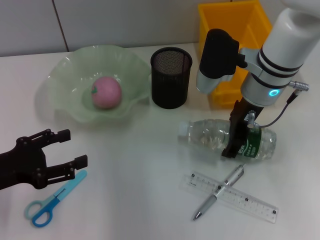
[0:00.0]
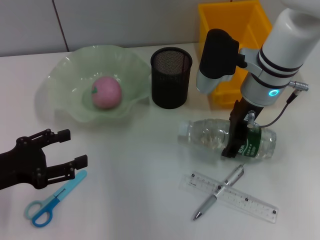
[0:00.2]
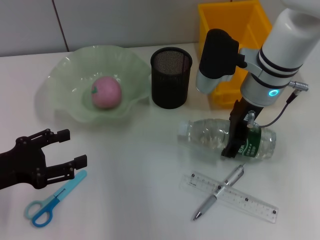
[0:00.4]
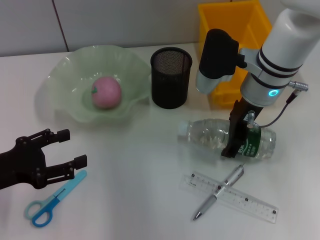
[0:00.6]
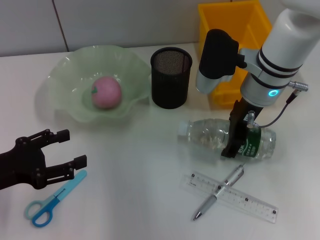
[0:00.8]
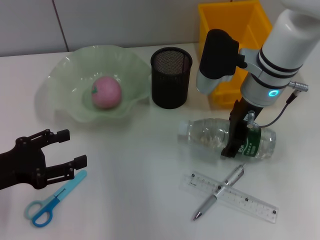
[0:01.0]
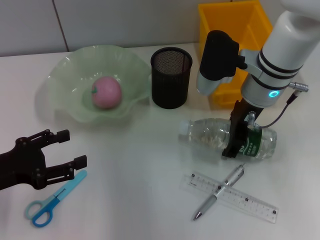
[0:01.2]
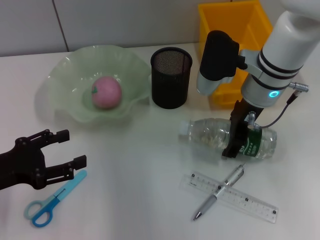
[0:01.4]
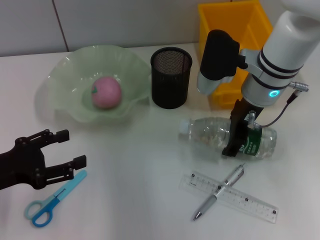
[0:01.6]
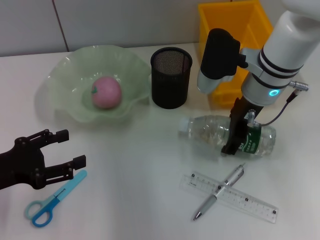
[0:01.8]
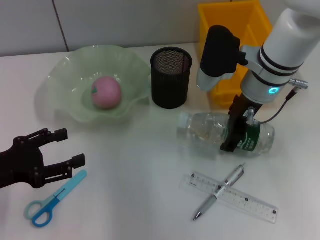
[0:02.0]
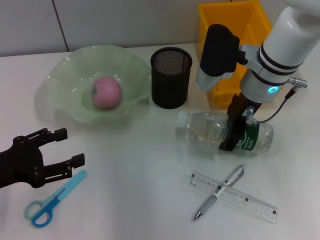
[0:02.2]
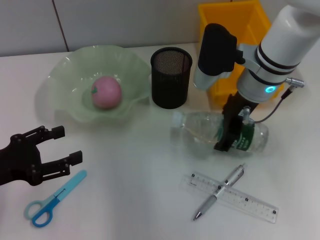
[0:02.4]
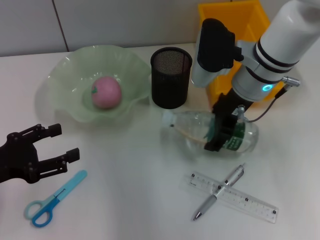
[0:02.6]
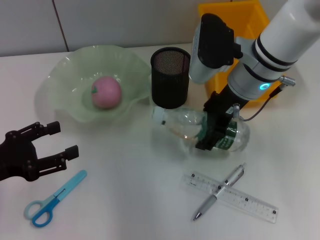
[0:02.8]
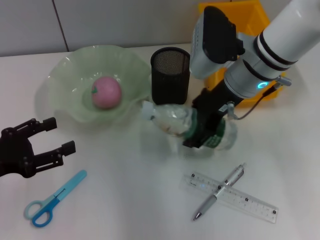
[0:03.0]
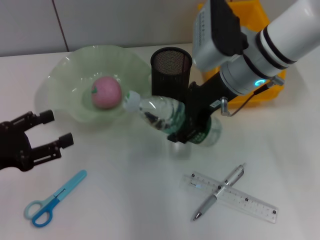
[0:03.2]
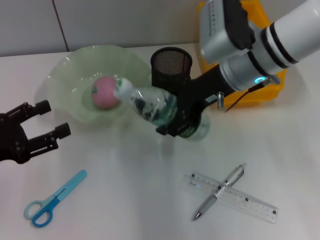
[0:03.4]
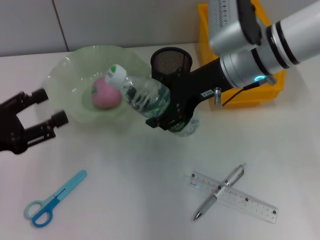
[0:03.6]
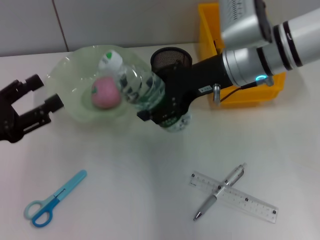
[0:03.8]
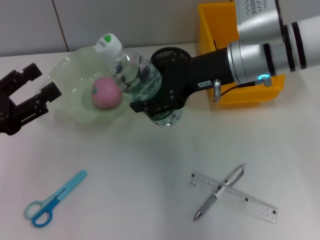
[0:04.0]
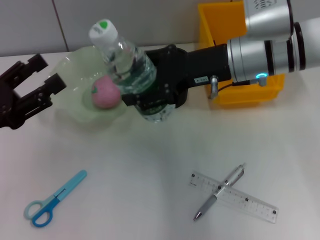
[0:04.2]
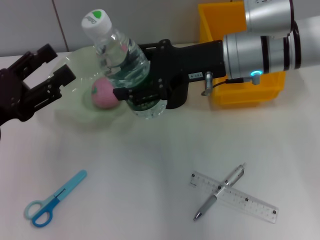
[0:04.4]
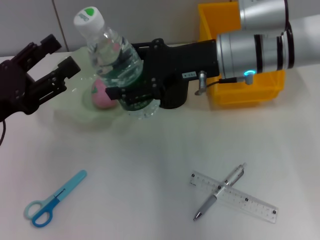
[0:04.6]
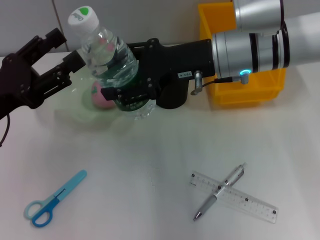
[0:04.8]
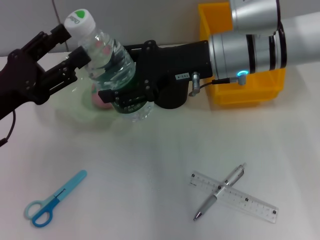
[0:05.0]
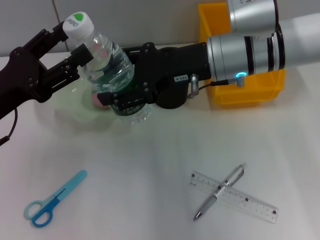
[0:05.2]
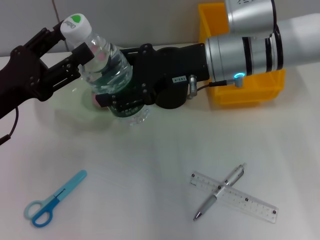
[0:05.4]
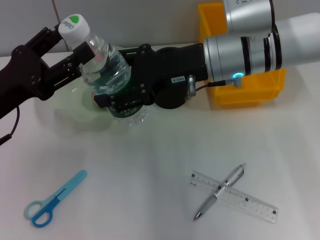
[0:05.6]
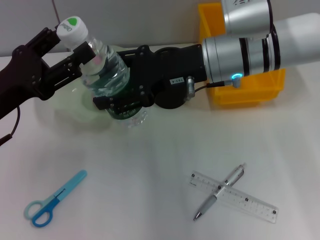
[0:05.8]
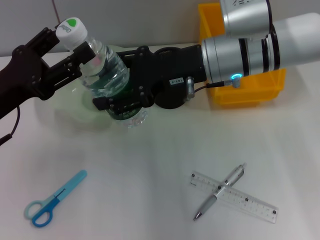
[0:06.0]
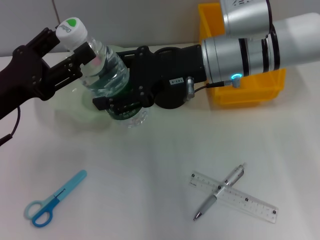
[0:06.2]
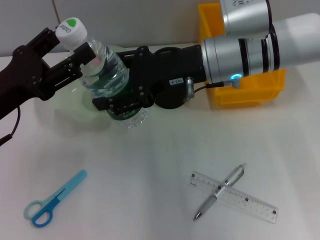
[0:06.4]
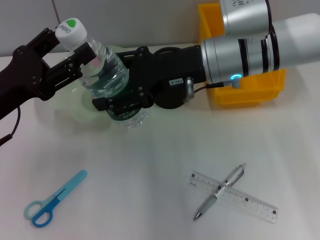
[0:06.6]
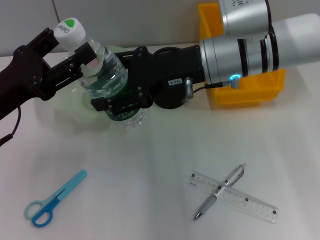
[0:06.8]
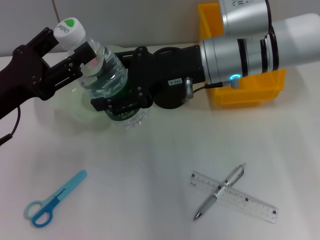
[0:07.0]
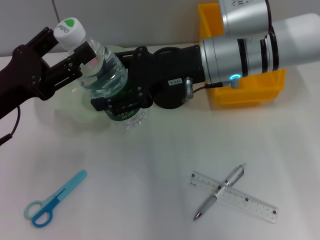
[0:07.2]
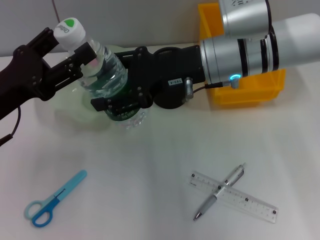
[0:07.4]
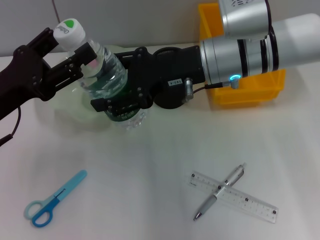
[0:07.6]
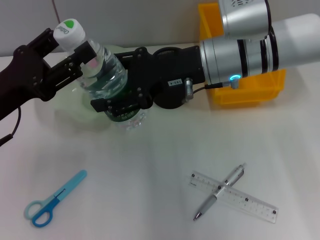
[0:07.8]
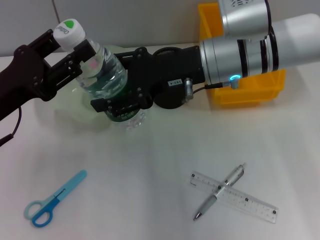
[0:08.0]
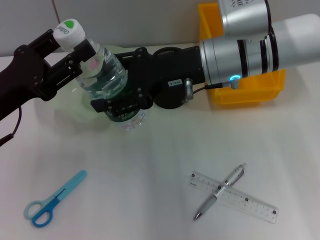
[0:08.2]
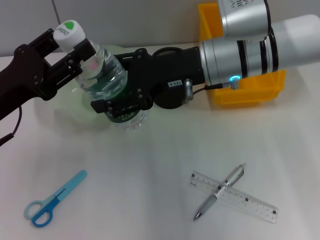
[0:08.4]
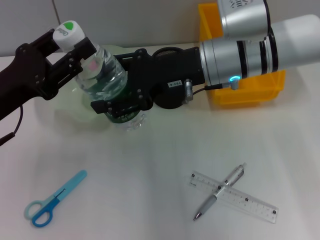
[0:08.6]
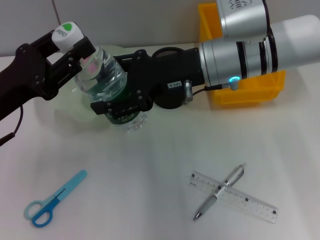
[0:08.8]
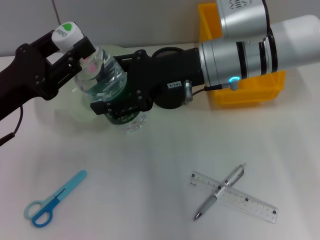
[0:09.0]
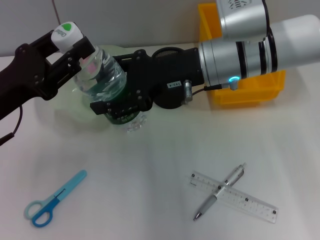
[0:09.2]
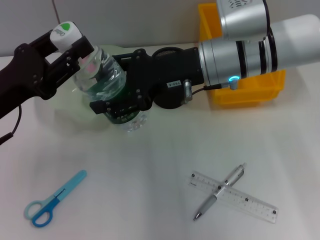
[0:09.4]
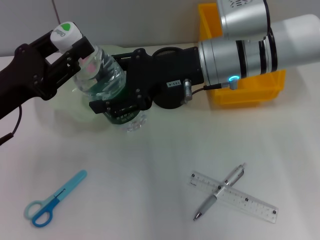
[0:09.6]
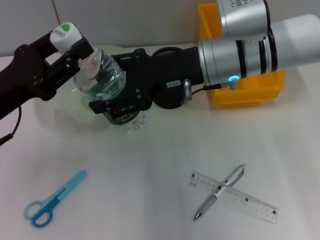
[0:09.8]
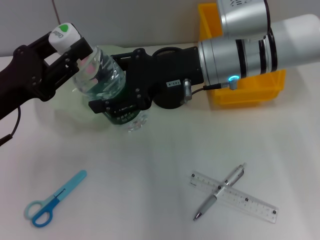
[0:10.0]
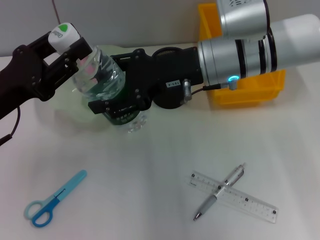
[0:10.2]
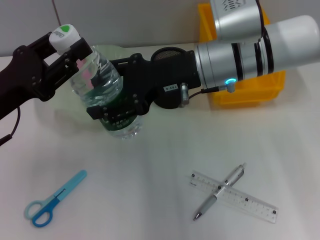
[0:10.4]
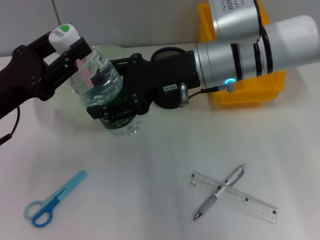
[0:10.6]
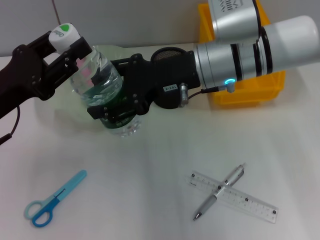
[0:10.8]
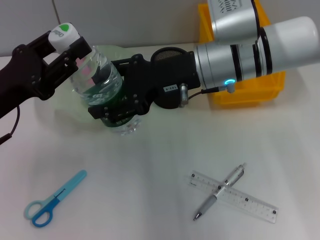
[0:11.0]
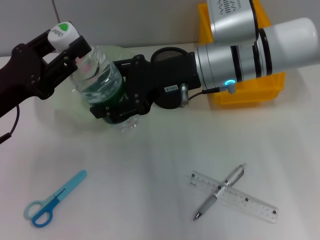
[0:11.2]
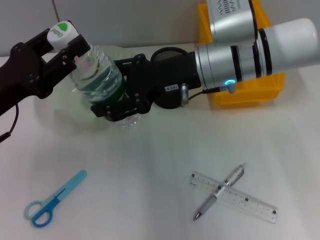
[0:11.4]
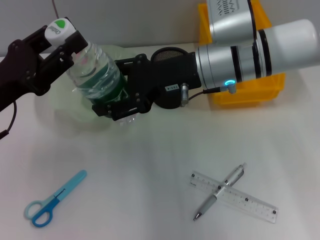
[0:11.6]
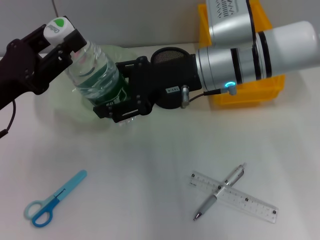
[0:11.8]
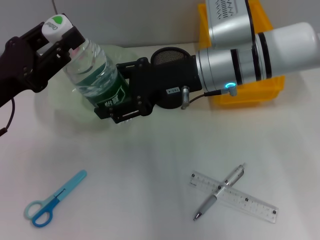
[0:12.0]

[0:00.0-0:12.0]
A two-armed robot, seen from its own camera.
0:00.0 to 0:01.6: Both grippers stay put.
0:04.4 to 0:06.0: There are only small adjustments of the grippers.
0:06.0 to 0:07.6: Both grippers stay put.
0:07.6 to 0:09.0: The left gripper closes.
0:09.0 to 0:12.0: Both grippers stay put.

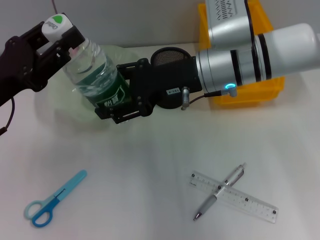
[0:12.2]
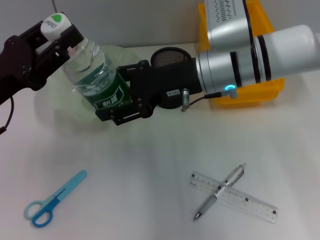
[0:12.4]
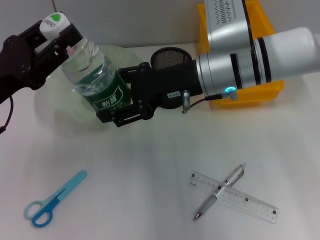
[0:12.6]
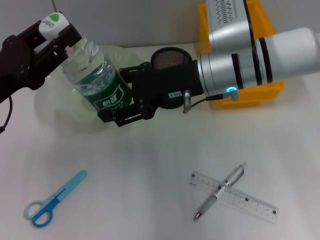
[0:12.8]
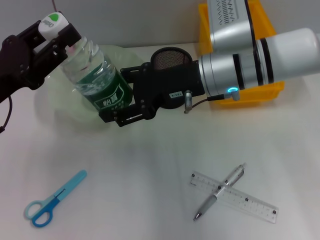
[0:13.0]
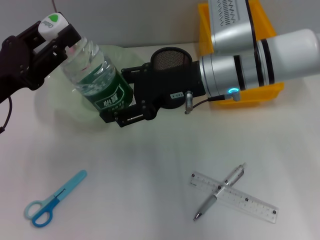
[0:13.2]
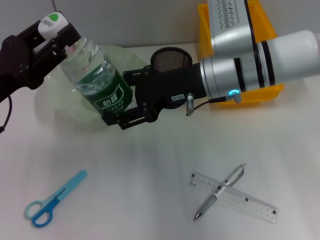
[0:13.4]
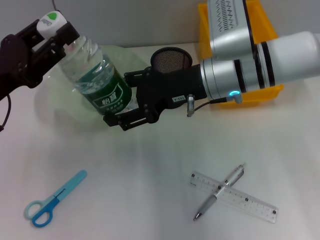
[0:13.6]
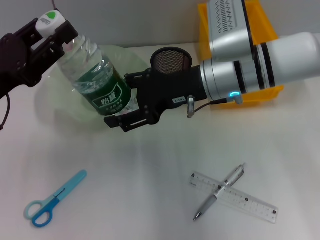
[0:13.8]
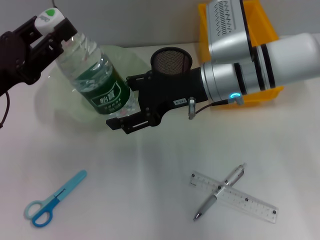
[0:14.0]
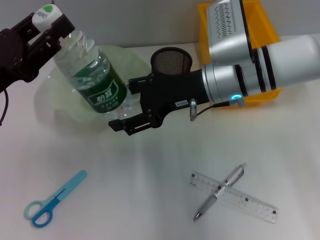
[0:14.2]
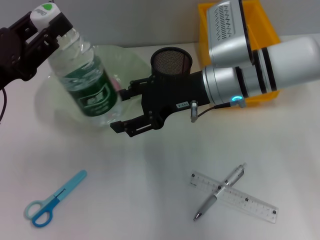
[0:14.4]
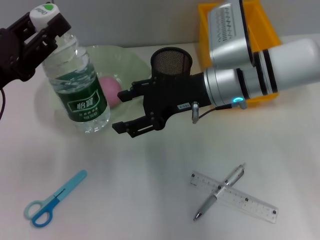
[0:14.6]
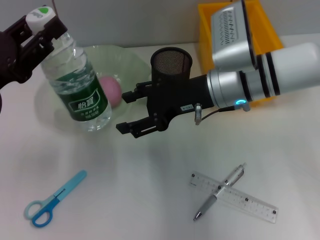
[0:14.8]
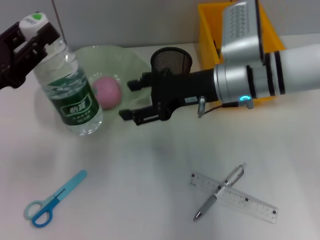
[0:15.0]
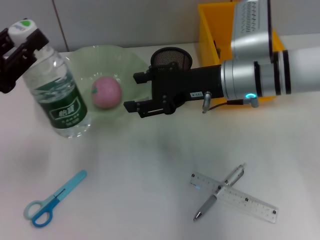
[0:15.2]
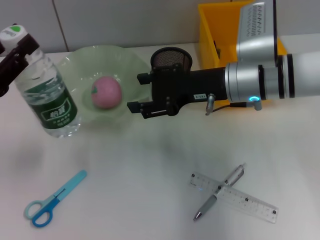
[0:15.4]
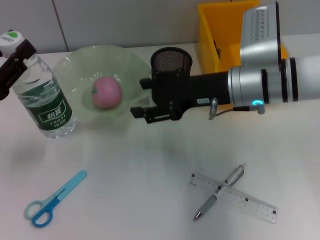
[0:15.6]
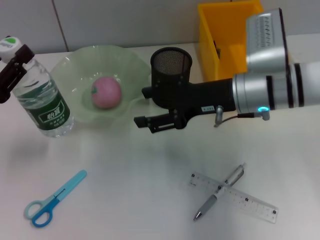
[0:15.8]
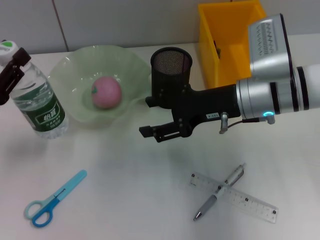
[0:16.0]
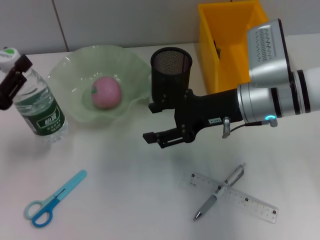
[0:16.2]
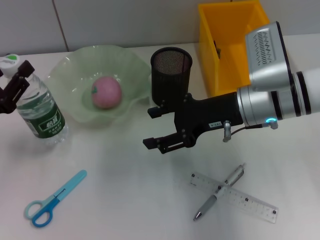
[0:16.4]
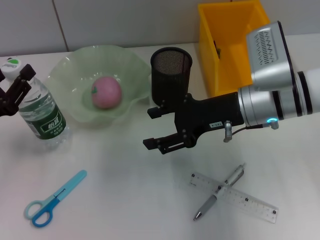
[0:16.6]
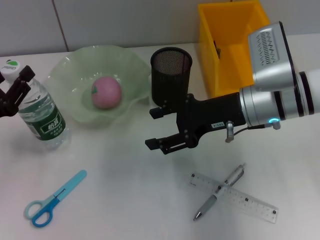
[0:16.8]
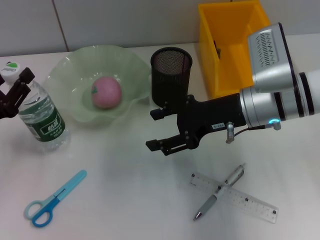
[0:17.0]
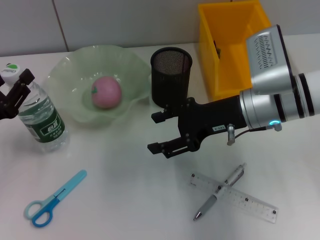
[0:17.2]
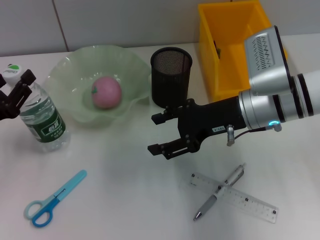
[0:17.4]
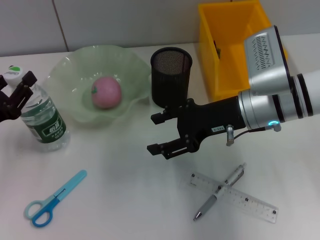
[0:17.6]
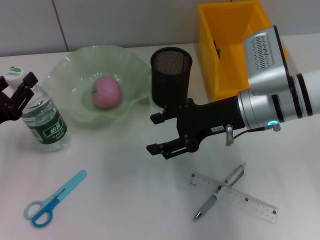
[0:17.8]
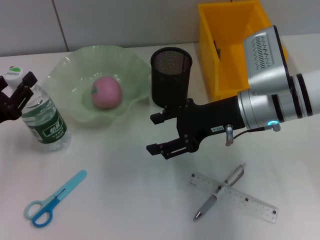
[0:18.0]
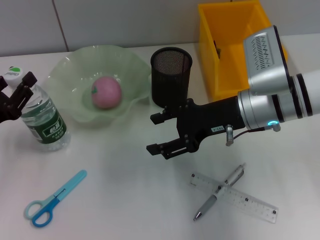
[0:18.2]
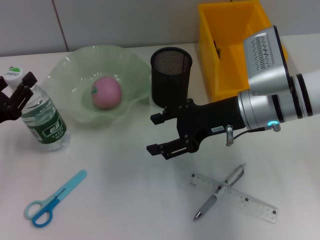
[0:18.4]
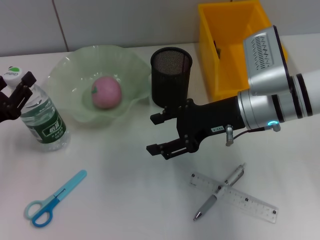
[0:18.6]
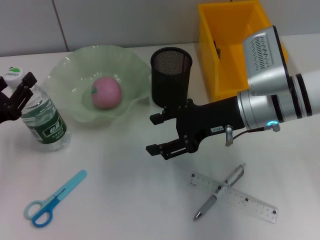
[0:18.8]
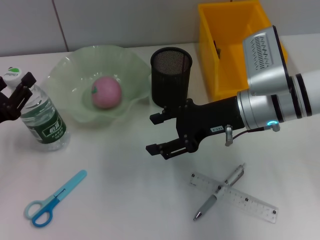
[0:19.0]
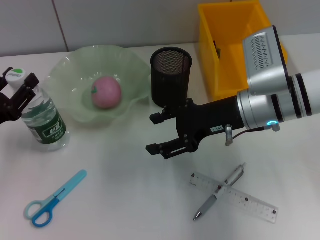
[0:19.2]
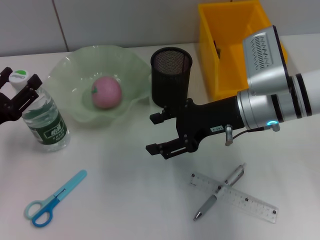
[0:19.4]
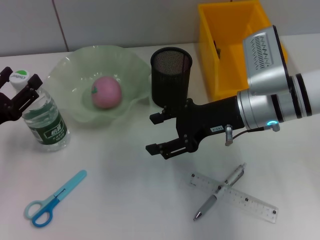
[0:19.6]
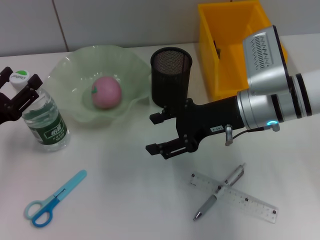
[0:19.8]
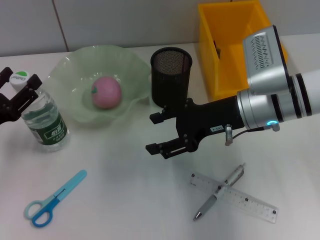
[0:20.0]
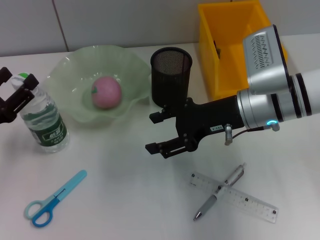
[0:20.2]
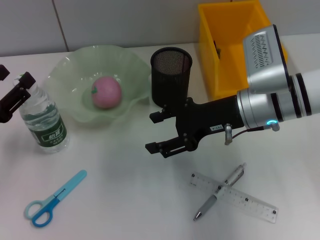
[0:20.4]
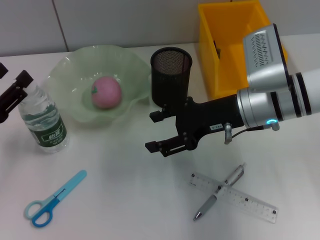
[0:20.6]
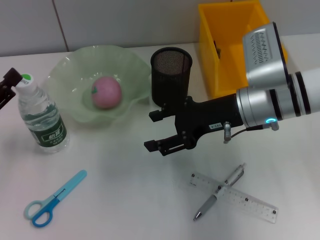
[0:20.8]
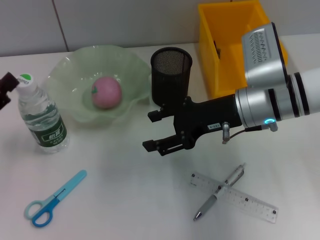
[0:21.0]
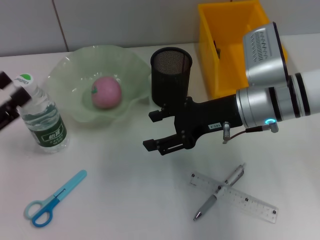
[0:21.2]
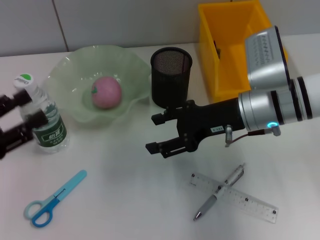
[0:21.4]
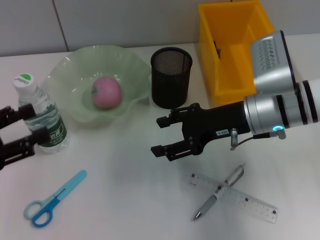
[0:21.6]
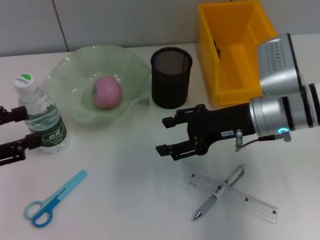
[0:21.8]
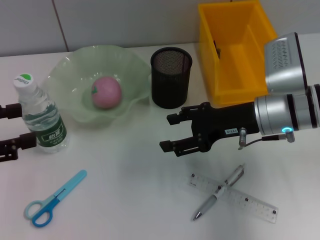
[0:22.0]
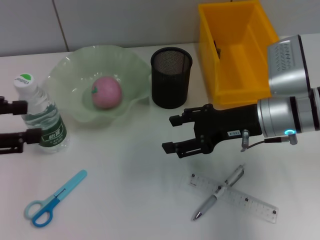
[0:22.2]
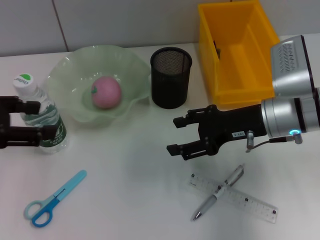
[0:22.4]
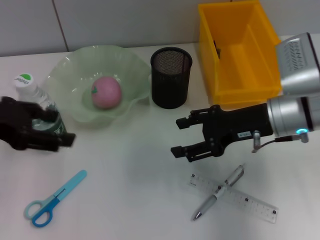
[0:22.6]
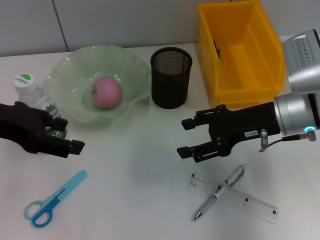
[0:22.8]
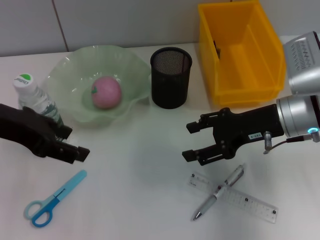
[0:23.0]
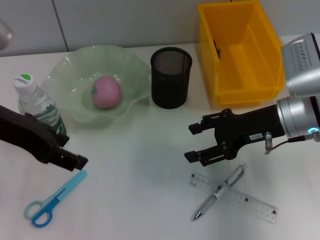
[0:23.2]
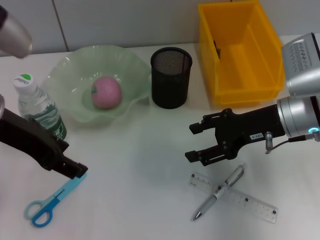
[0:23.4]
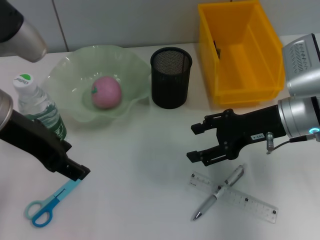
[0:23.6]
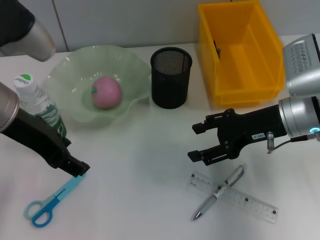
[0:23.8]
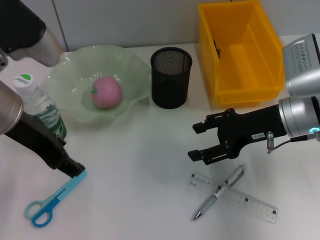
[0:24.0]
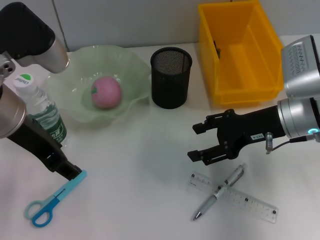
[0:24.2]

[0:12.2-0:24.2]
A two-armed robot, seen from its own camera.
Step, 0:14.0 to 0:20.2: Place the water bottle on the table with the left hand.
0:12.2 to 0:13.8: The two grippers keep their place.
0:15.2 to 0:16.6: The left gripper heads downward, covering approximately 5 cm.
0:16.6 to 0:18.2: Both grippers stay about where they are.
0:18.2 to 0:19.8: The left gripper opens up.
0:19.8 to 0:21.2: The left gripper shifts by approximately 5 cm.
0:21.2 to 0:22.6: The left gripper goes some 15 cm upward, forward and to the right.
0:22.6 to 0:24.2: The left gripper travels to the right by about 10 cm.
